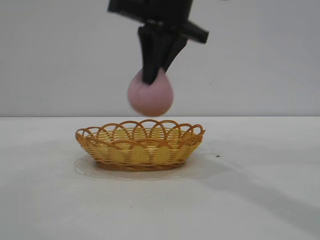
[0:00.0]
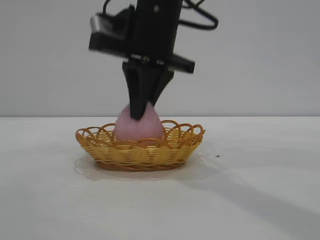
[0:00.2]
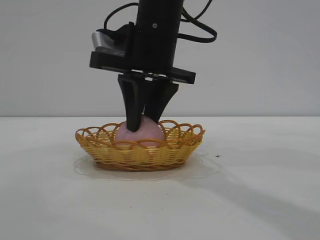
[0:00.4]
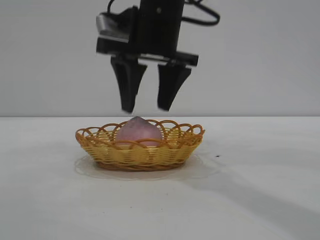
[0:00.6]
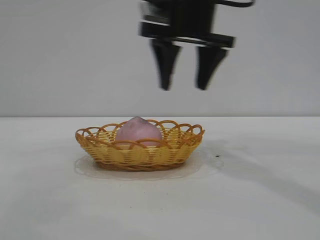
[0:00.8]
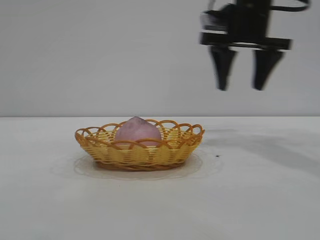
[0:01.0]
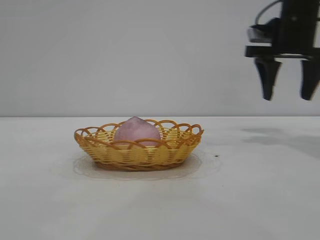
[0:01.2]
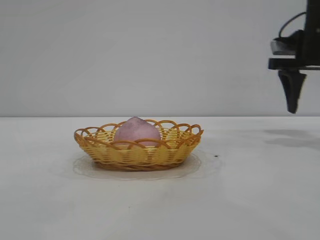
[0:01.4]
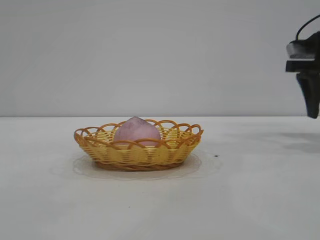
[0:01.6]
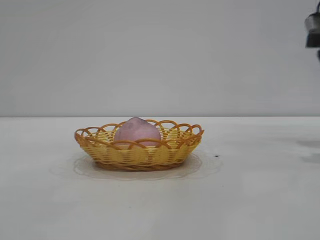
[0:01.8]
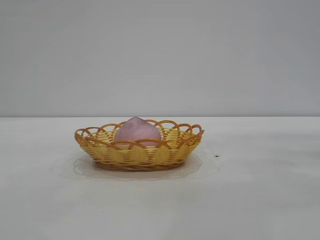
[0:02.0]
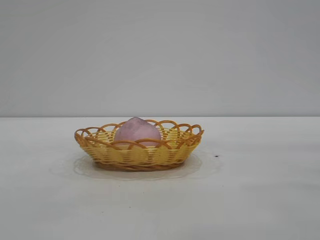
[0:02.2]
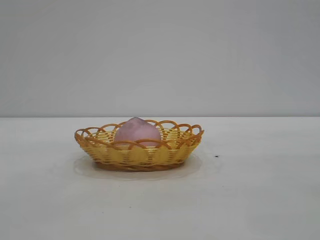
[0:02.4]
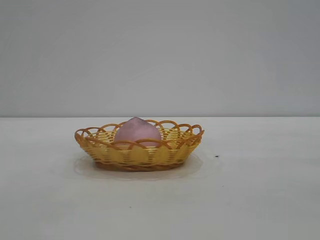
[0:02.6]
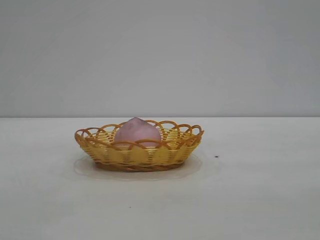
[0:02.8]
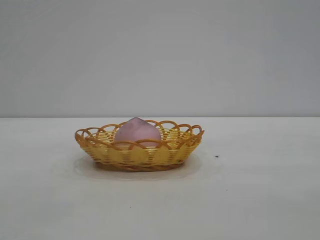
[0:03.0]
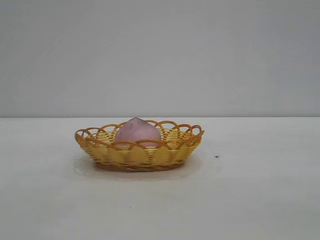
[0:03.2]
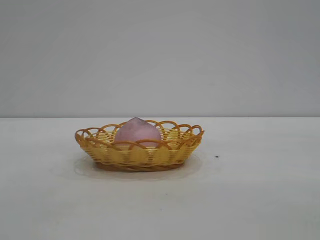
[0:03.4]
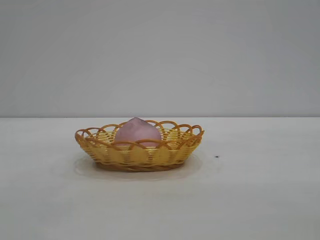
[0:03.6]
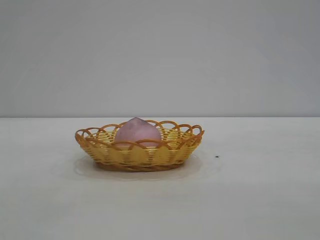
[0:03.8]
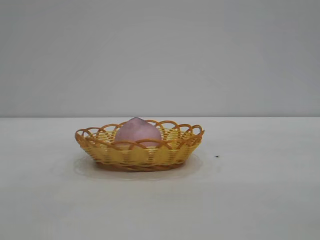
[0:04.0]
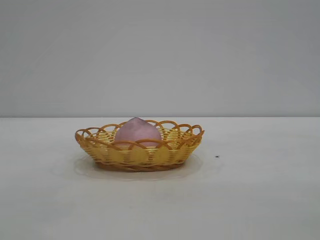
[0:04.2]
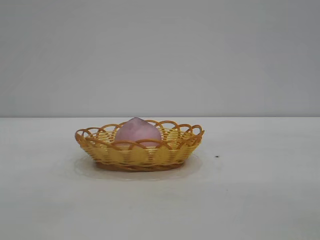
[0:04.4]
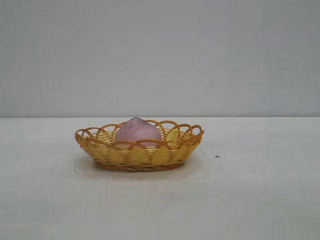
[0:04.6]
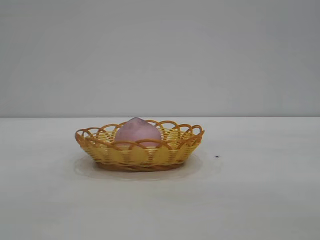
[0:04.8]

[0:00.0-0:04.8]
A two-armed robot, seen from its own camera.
Task of the whole recording: pick up the peach and put it into the basket.
Step, 0:00.0 to 0:00.8: place the peach into the basket.
